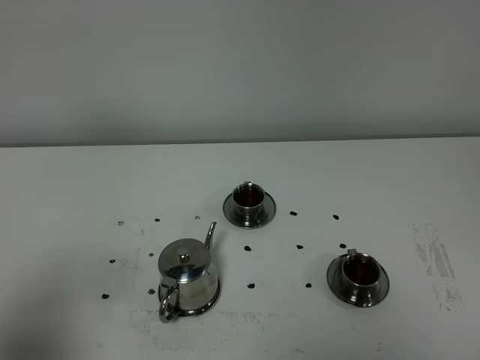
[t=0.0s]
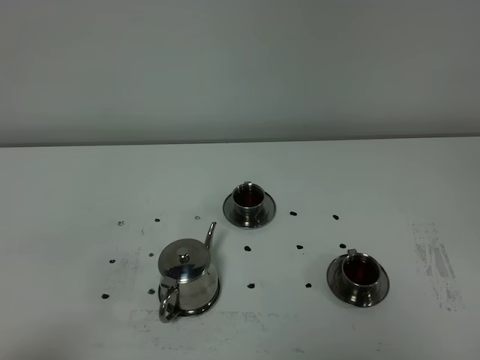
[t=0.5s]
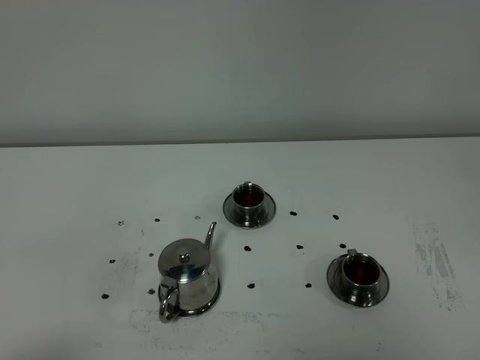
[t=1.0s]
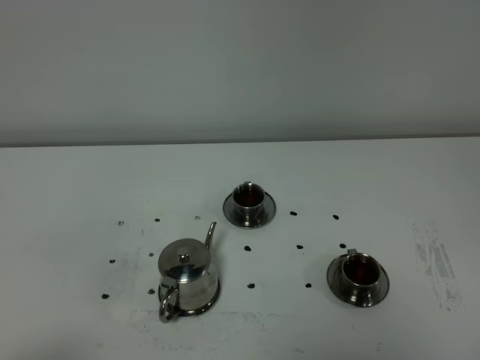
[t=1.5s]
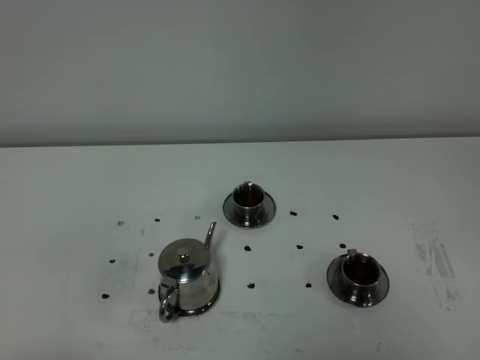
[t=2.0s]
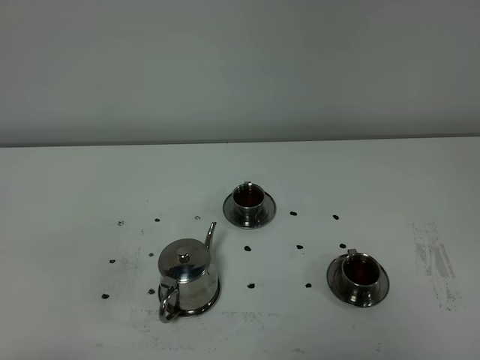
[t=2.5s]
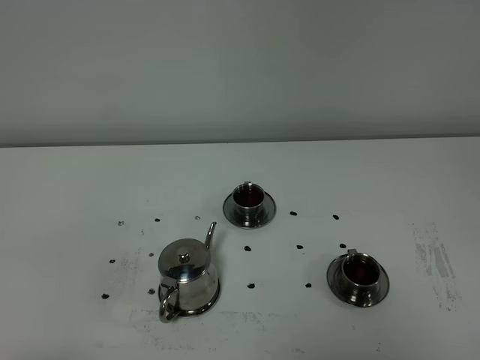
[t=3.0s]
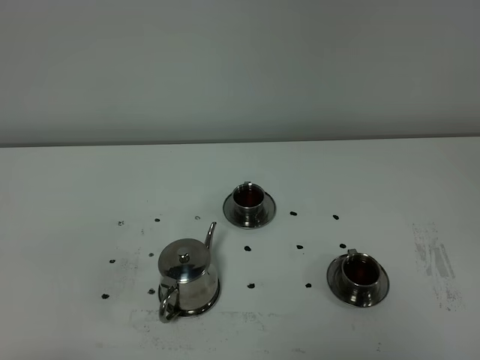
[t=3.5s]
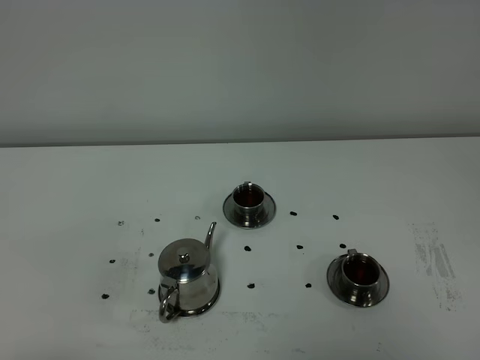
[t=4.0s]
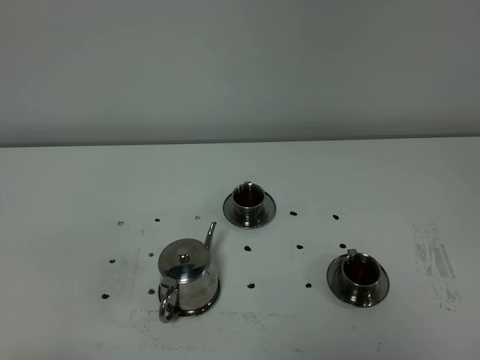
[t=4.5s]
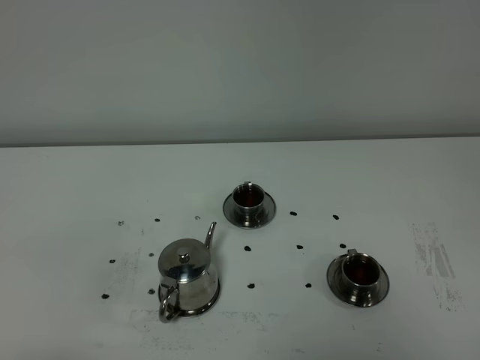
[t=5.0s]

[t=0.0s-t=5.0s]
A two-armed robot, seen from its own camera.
Task of the whole recording: grasp the stainless steel teapot and pour the tea into the two stainless steel teacups one by one, put the stainless steel teapot back in its original place.
t=0.0s to t=2.5s: The left gripper heads backward and downward, covering some 10 cm.
t=2.5s to t=5.0s: Both grippers stay about where they are.

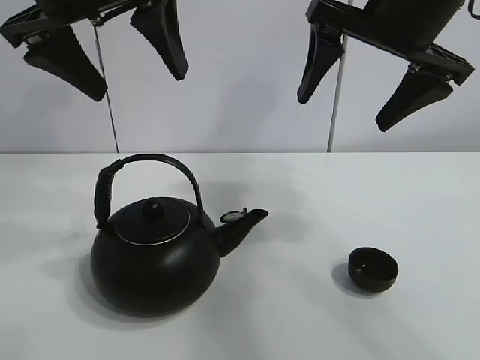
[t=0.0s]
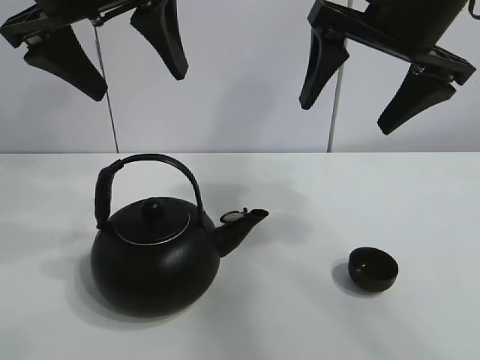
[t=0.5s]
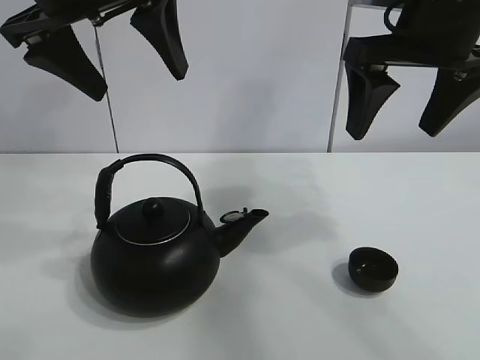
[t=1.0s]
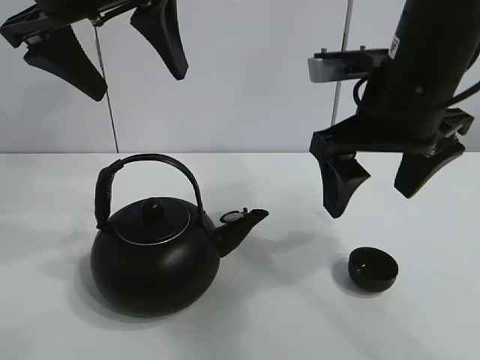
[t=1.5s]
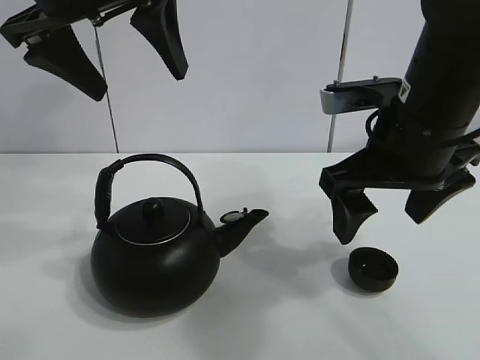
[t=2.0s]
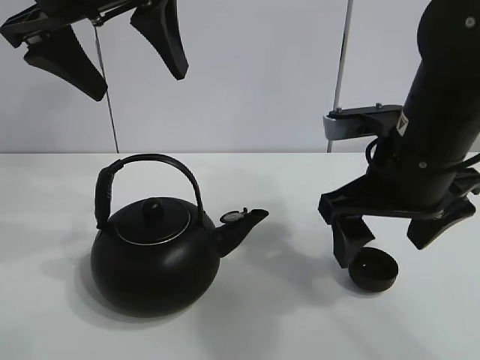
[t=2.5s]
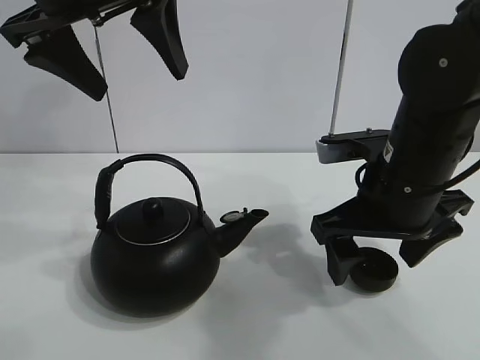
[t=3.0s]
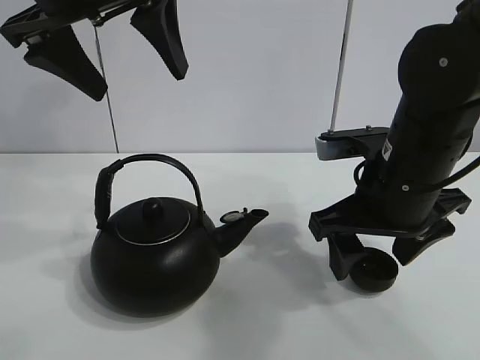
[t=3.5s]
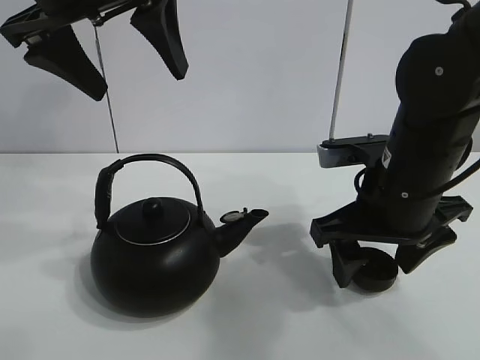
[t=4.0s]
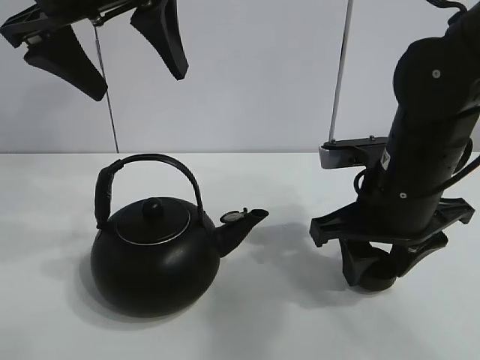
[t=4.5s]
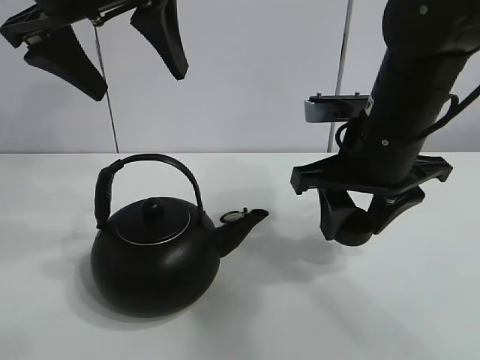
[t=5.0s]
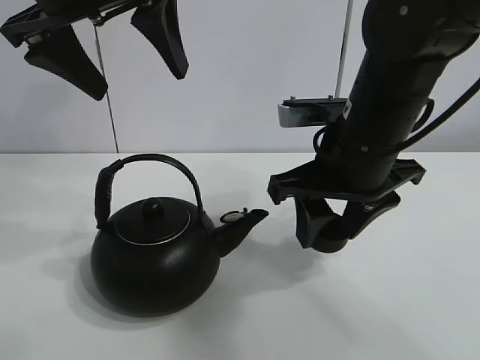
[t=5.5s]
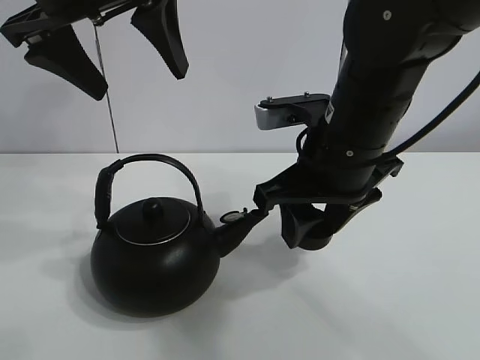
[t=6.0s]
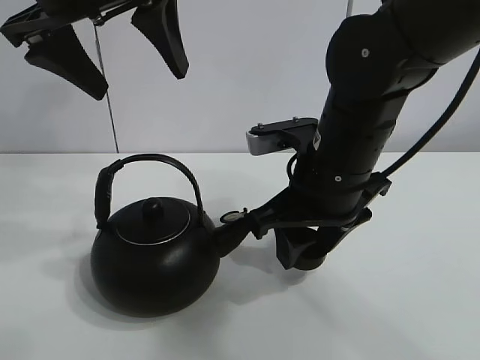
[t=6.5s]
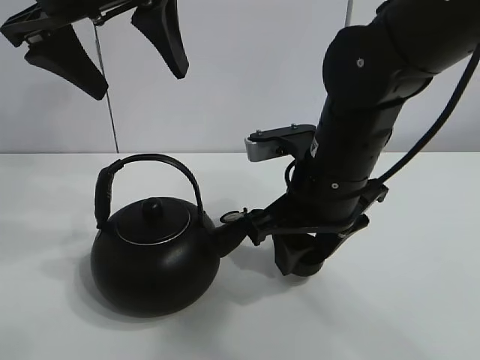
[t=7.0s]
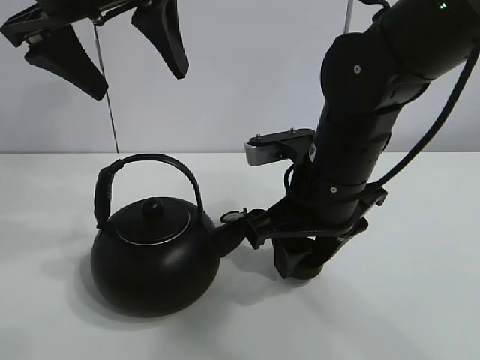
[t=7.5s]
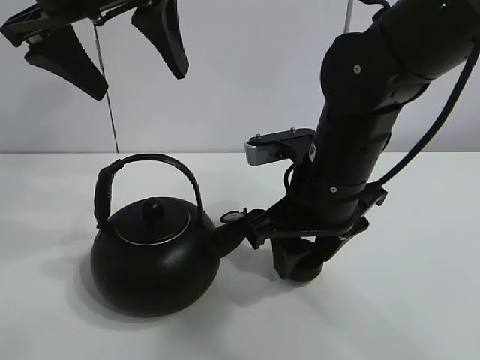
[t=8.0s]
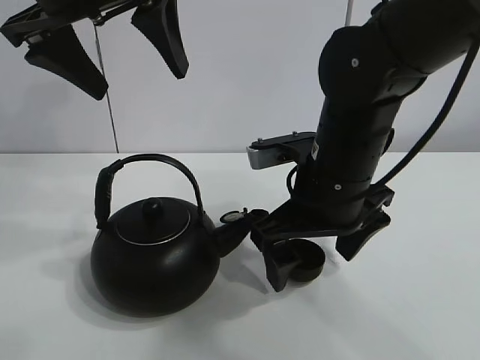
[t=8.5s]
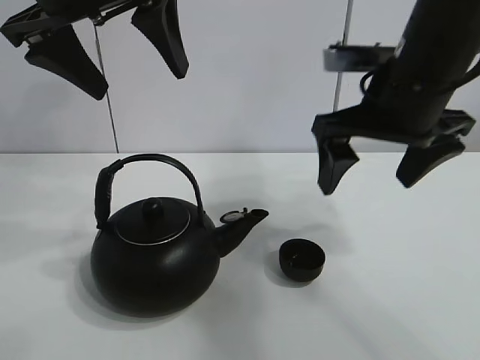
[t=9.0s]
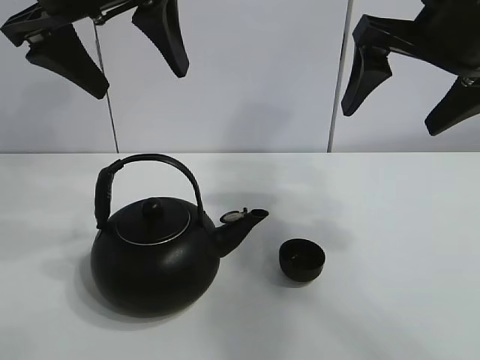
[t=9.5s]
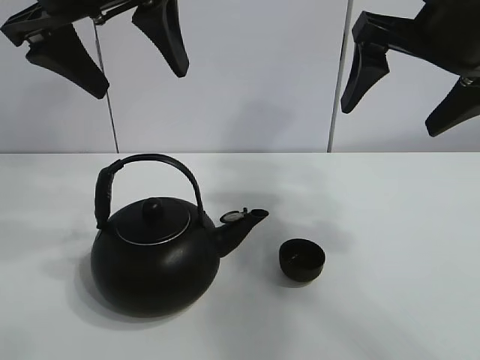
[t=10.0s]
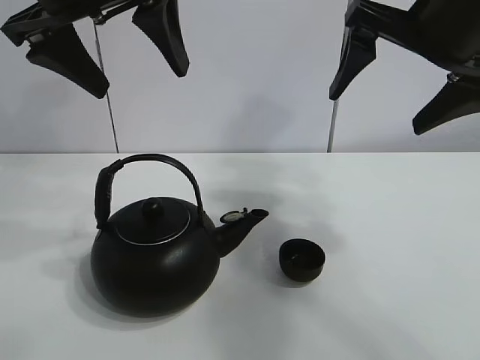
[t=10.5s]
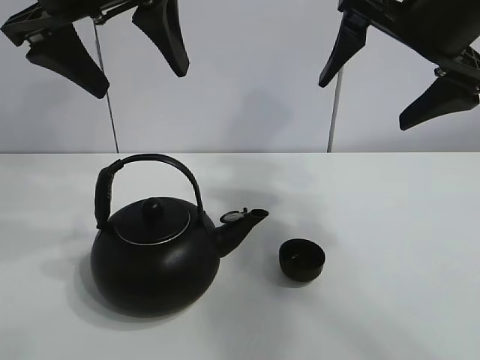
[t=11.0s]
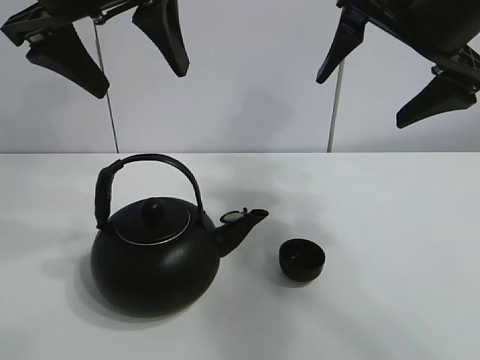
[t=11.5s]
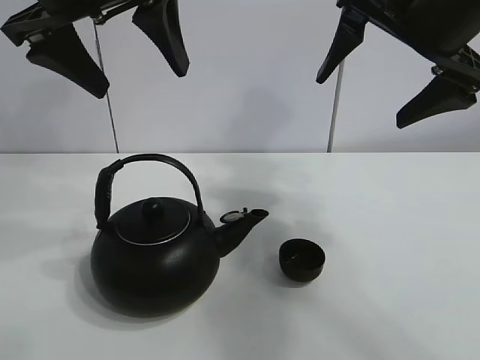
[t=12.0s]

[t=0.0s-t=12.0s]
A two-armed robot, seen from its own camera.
Task of the whole recording: pour tea into the teacup.
Step, t=0.0s to t=4.0s: Pick up the teacup with the right gripper.
Step, t=4.5s to t=8.0s: Place the teacup in the center of view with the right gripper.
t=2.0s to t=4.0s: The right gripper goes some 5 cm downward.
t=4.0s to t=6.0s: The right gripper is displaced to the left by about 5 cm, and closes up.
t=6.0s to t=8.0s: The grippers make only small movements.
t=8.0s to t=10.0s: The right gripper is displaced upward and to the right by some 20 cm, and opens.
t=10.0s to t=12.0s: There are only small adjustments of the grippers.

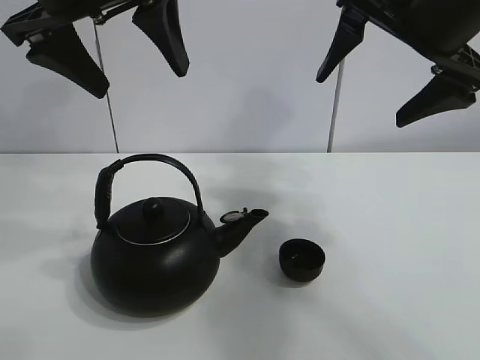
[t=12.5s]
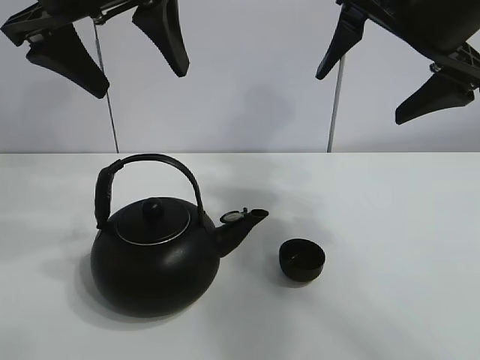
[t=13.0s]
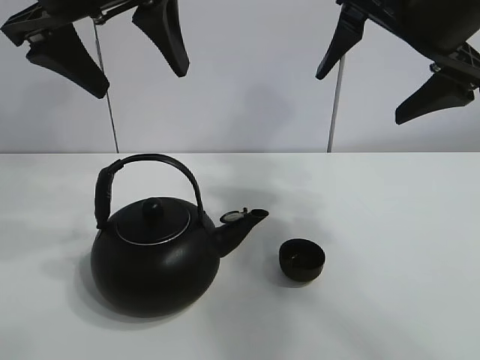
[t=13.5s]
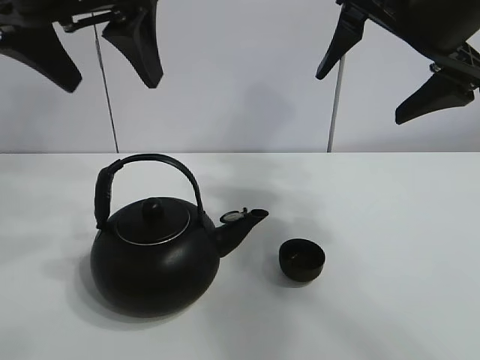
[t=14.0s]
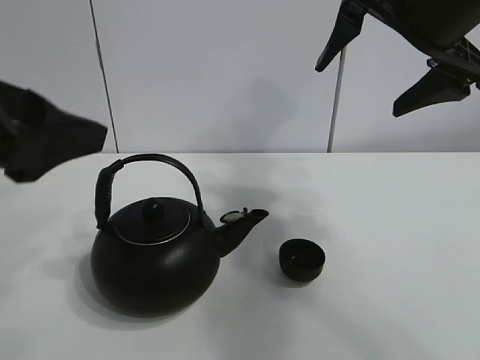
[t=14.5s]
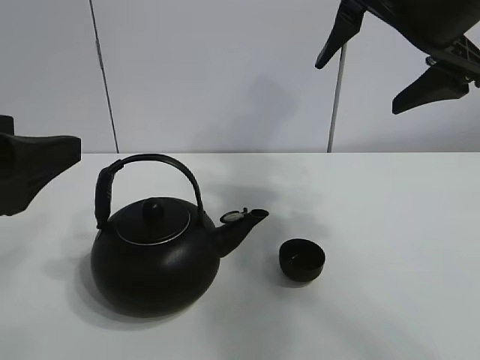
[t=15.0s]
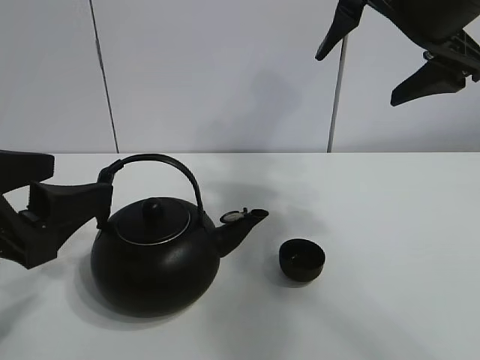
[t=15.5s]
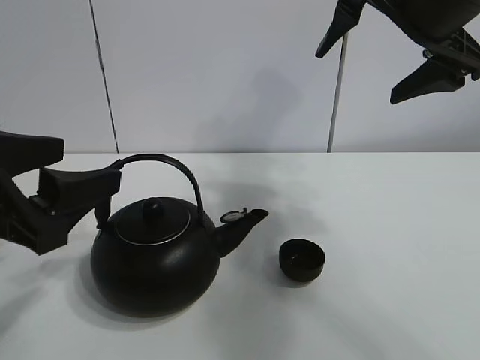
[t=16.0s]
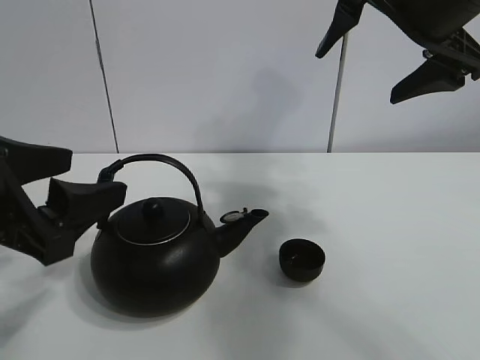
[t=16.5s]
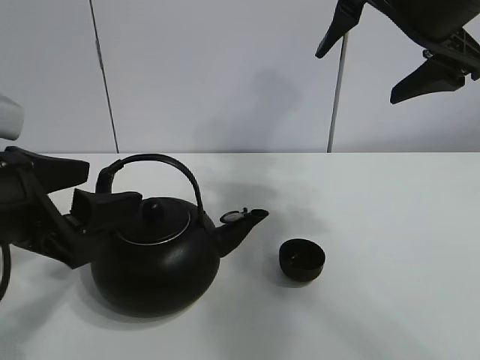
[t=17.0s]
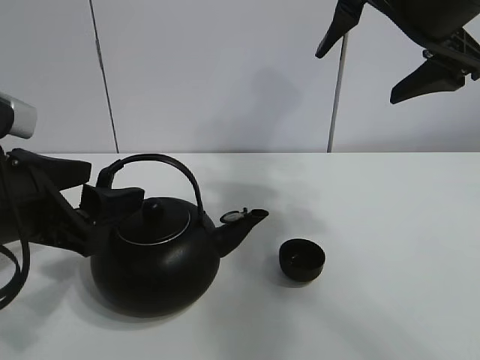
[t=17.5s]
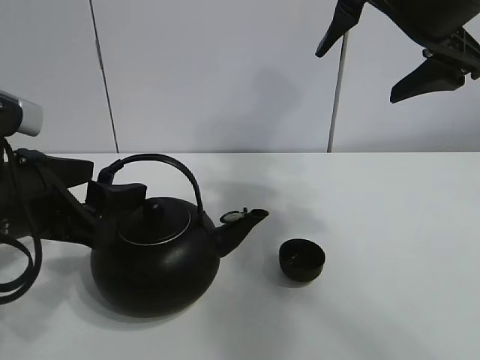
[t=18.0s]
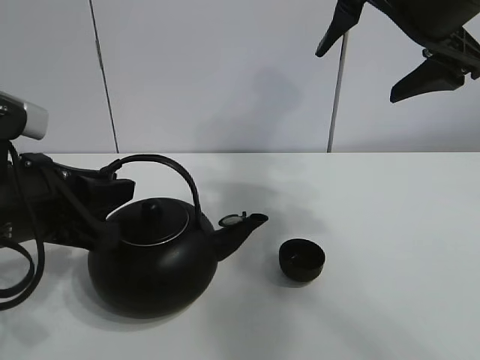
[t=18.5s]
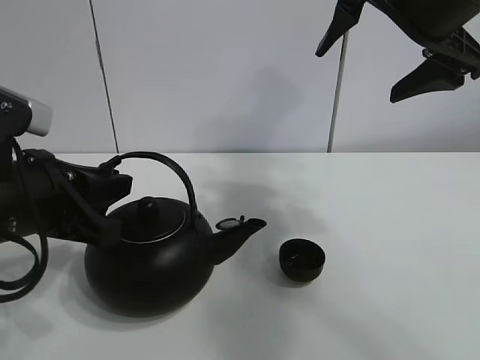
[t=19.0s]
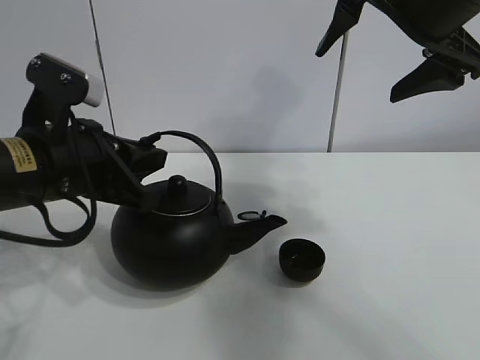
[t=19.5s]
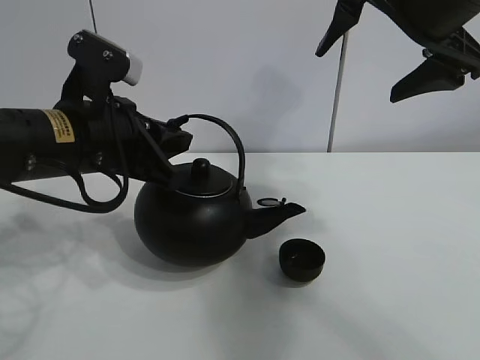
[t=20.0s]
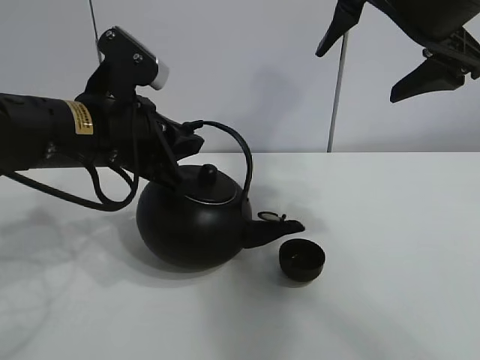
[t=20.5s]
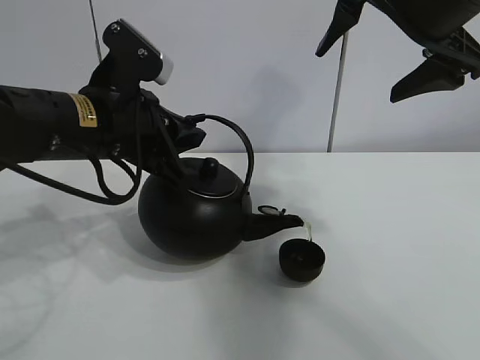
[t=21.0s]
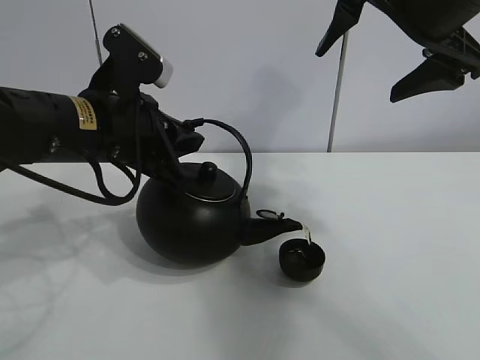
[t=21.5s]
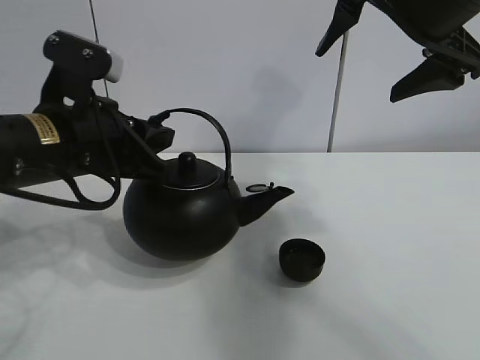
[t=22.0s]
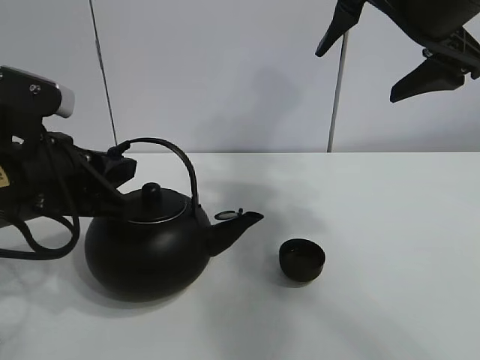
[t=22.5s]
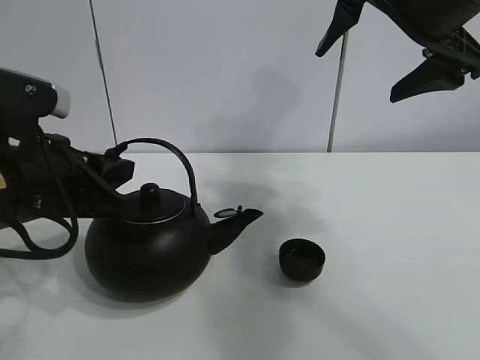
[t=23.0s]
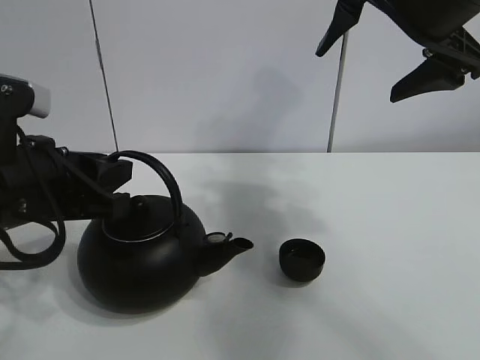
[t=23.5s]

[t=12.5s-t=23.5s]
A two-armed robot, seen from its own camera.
Task of the whole recording: pour tea into the teacup.
Step, t=12.5s to t=18.5s: Pick up the teapot with the left gripper.
Step, t=19.0s to t=21.5s: Pour tea into the teacup with the left gripper.
t=12.5s to t=14.5s: The left gripper is displaced backward, downward and to the left by about 15 cm.
t=14.5s to t=16.0s: The left gripper travels downward by about 10 cm.
t=16.0s to t=18.0s: The left gripper ends up about 5 cm from where it was.
t=18.0s to t=20.0s: The left gripper goes approximately 10 cm forward and to the right, and closes.
t=20.0s to t=21.5s: The grippers make only small movements.
t=21.5s to t=23.5s: The left gripper heads backward and to the left, covering roughly 10 cm.
